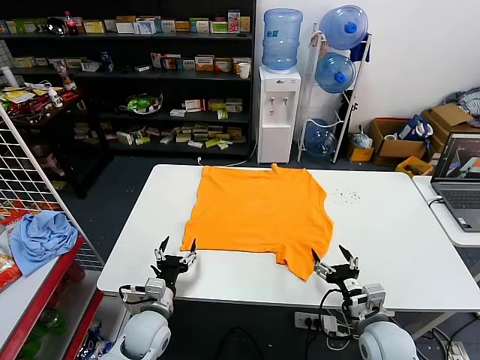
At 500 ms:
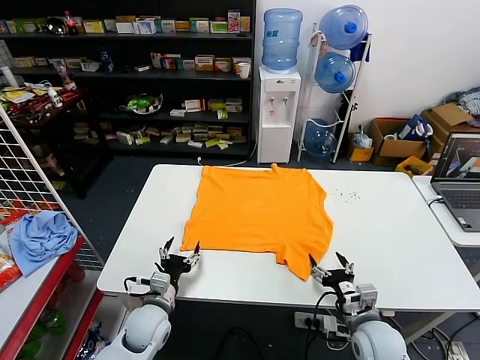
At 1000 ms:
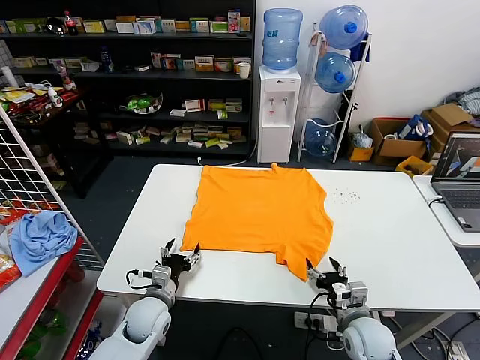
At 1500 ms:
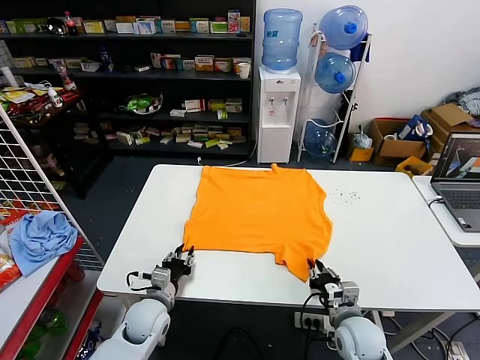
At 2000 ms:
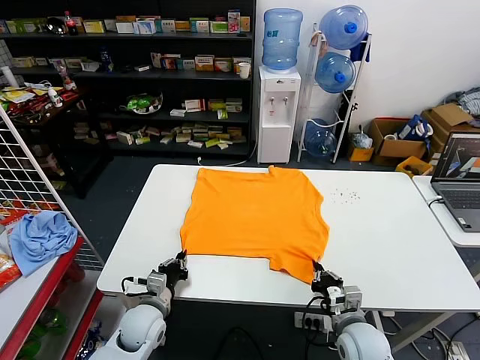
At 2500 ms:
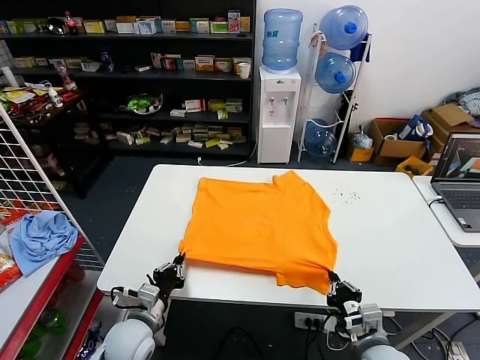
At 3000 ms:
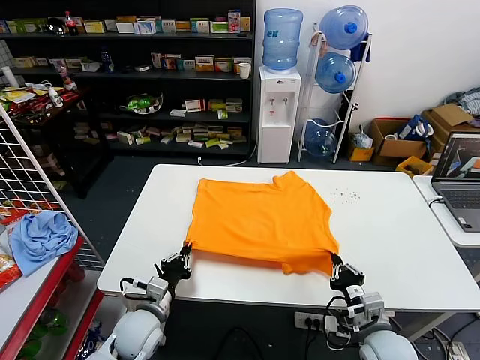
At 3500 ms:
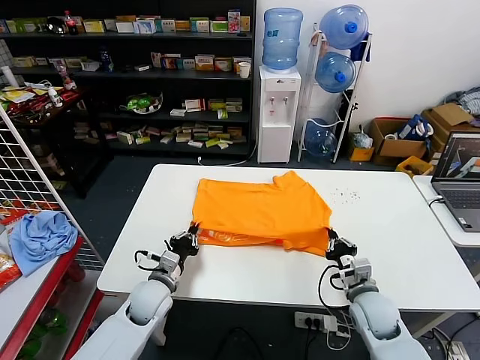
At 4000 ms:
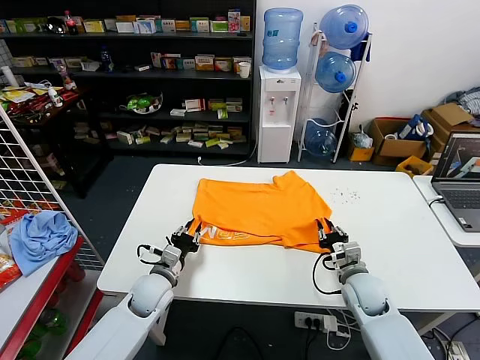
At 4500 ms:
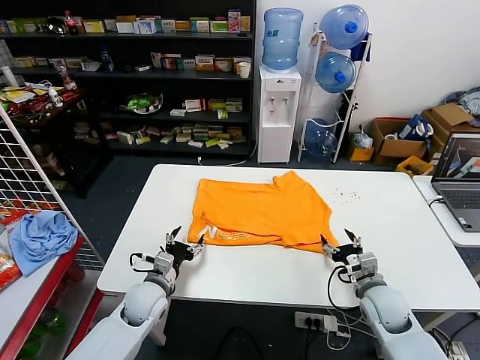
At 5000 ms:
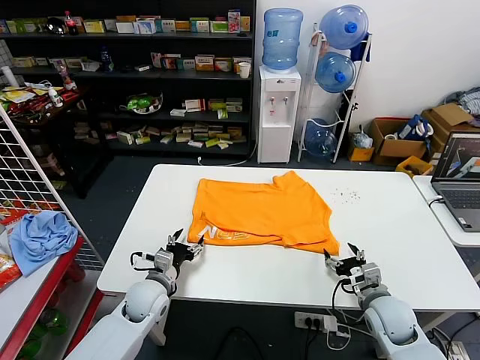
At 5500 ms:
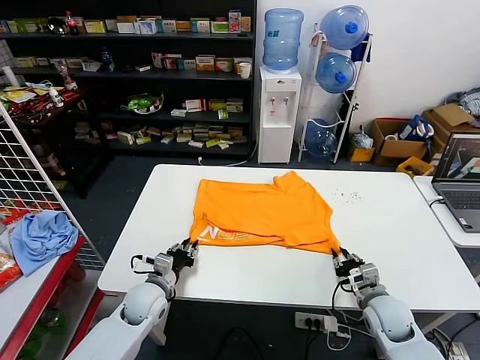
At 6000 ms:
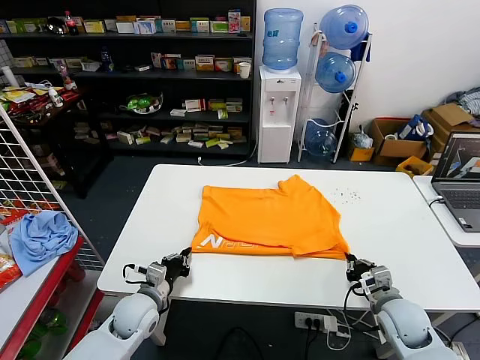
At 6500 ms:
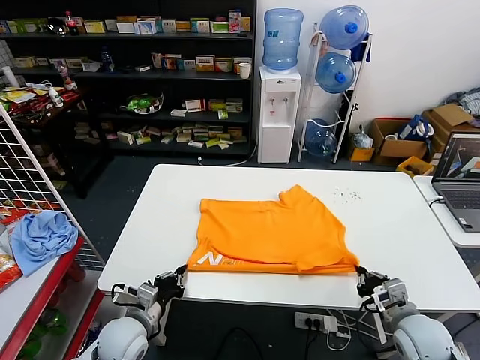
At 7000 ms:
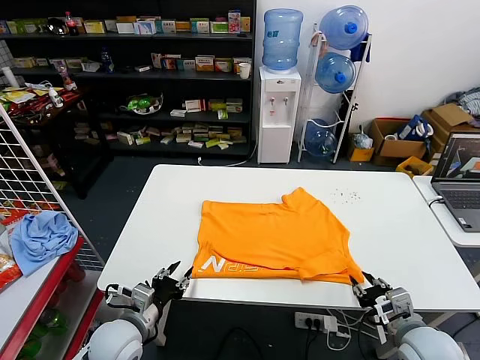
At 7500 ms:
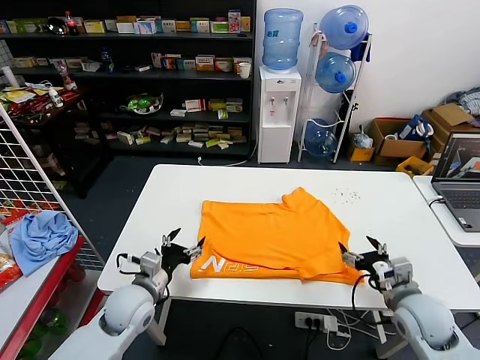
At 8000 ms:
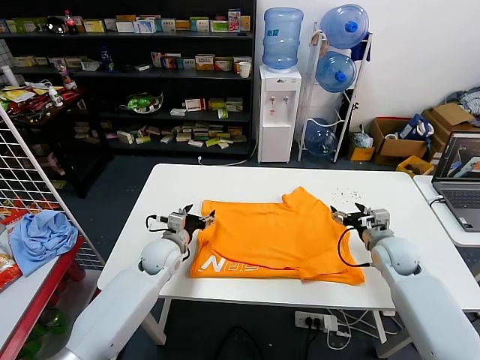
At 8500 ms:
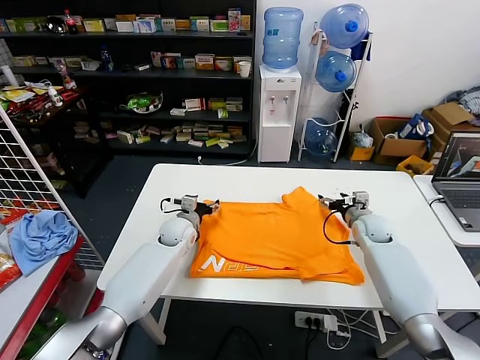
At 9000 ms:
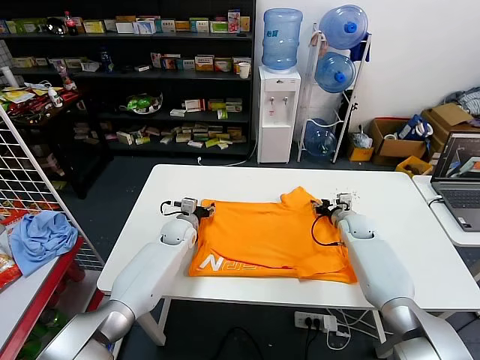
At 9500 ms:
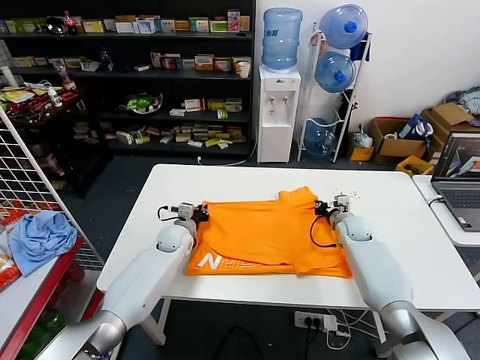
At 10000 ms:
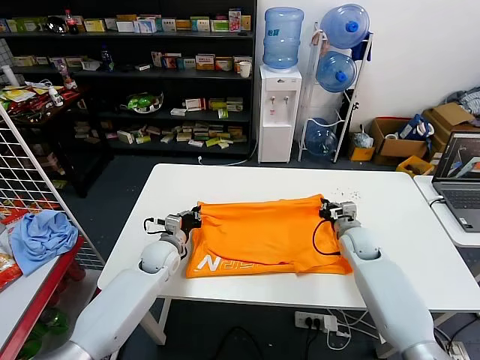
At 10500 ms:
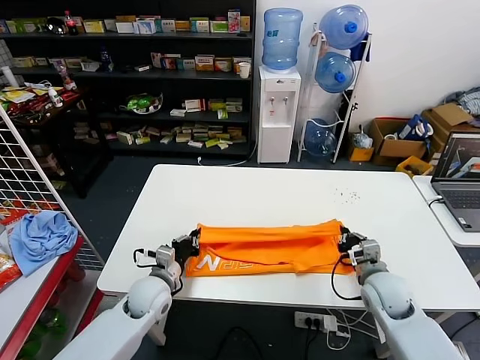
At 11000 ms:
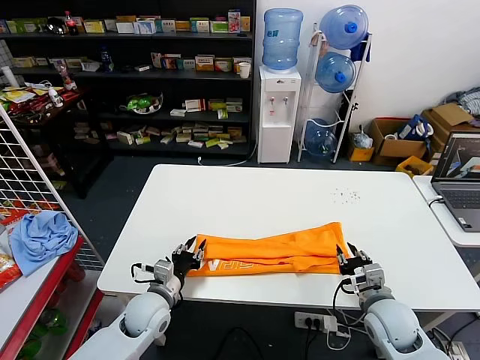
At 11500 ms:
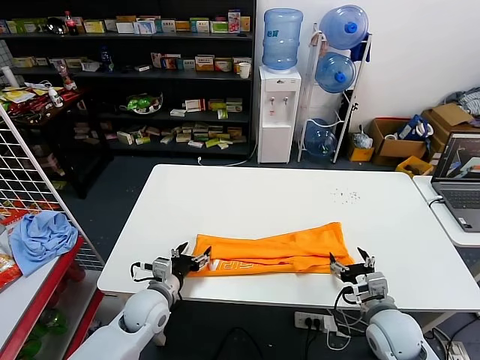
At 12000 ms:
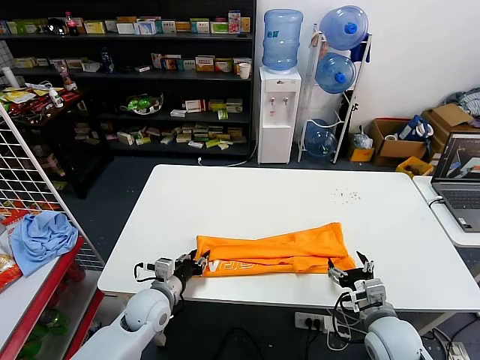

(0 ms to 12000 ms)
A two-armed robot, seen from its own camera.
Task of the whole recording: fold and organize the clothes.
Step, 0 ms - 1500 ms: use both grippers simultaneously to clamp the lower edge of the clothing fabric.
Step, 2000 ms - 3500 ms: use both grippers to drag the lower edge of the fabric forward and fold it over the upper edge.
Step, 4500 ms - 6500 ms: Drag the clothes downward with both gripper.
Step, 7000 ms - 9000 ms: use both grippers simultaneously to clamp the upper edge of the clothing fabric.
Step, 9500 ms - 10500 ms: use both grippers to drag the upper edge of the fabric backward and fold it over the lower edge.
2000 ms - 4000 ms: The left gripper travels forward by approximately 5 cm; the right gripper travels forward by approximately 10 cm, and opens its fingers.
4000 ms - 6000 ms: The right gripper shifts roughly 10 cm backward and to the right, and closes up. The left gripper shifts by about 5 cm, and opens and closes again.
6000 ms - 8000 ms: The two grippers go some 15 cm forward. The right gripper opens. Meanwhile the left gripper opens up.
8000 ms - 10000 ms: The left gripper moves some 10 cm forward and comes back, and closes. The right gripper moves to the left, some 5 cm, travels forward and back again, some 10 cm each way, and closes.
10000 ms - 12000 ms: The left gripper is displaced backward by about 15 cm, and opens its fingers. The right gripper moves backward, some 20 cm, and opens its fingers.

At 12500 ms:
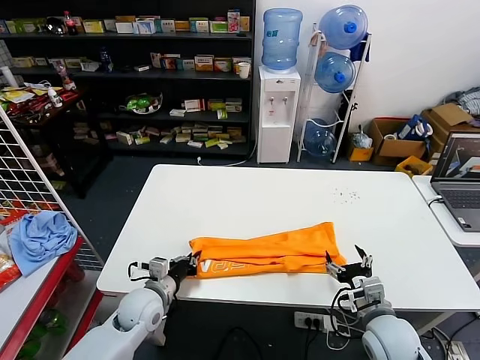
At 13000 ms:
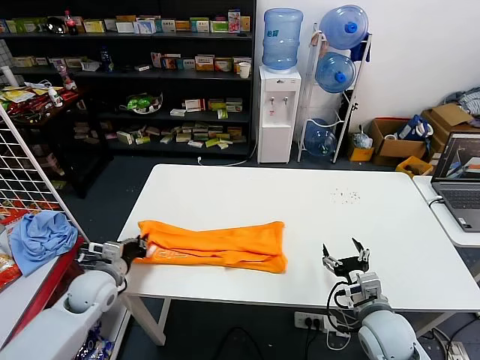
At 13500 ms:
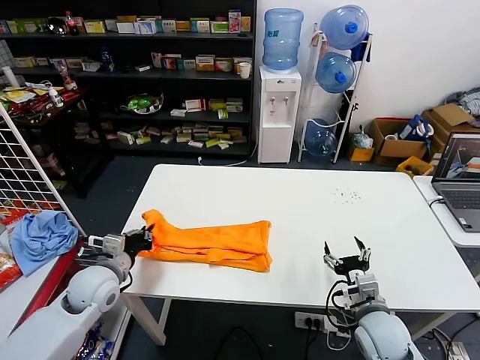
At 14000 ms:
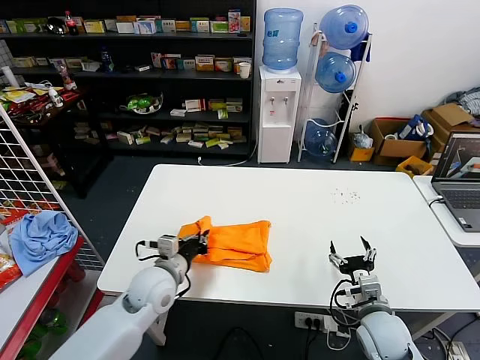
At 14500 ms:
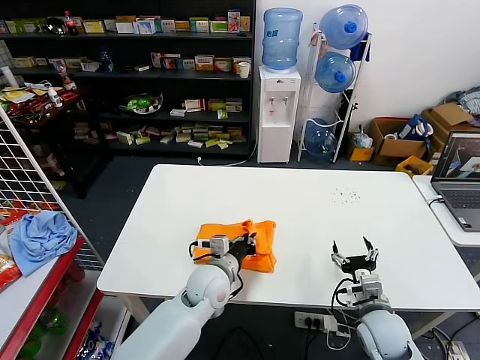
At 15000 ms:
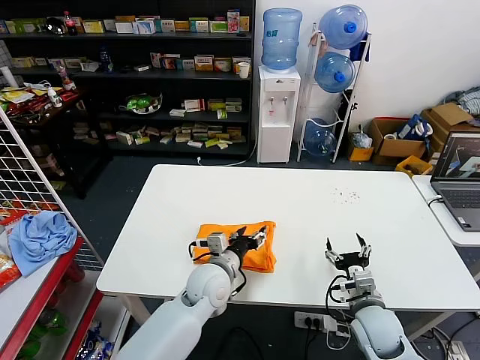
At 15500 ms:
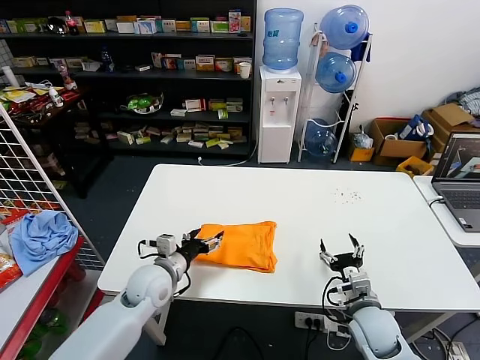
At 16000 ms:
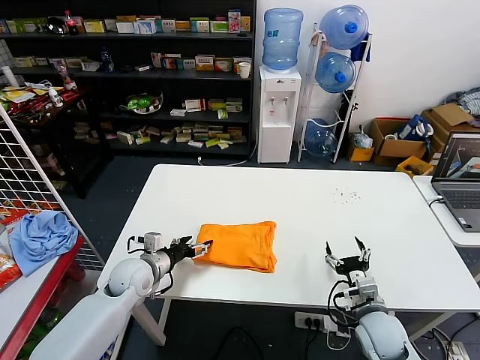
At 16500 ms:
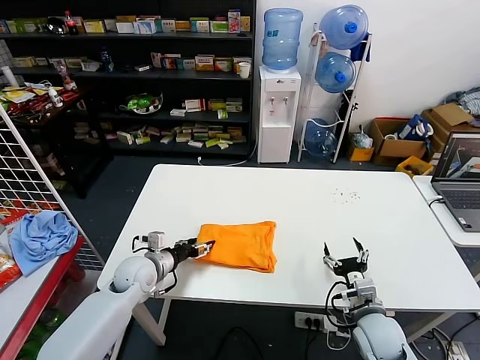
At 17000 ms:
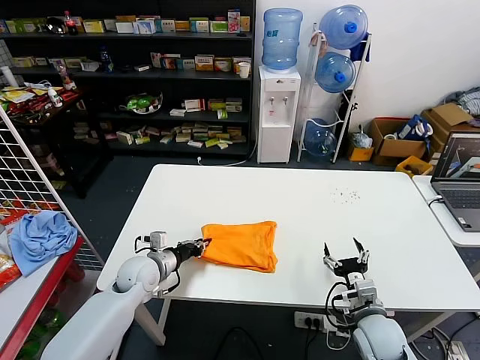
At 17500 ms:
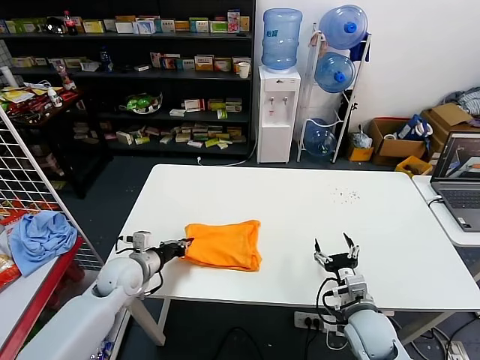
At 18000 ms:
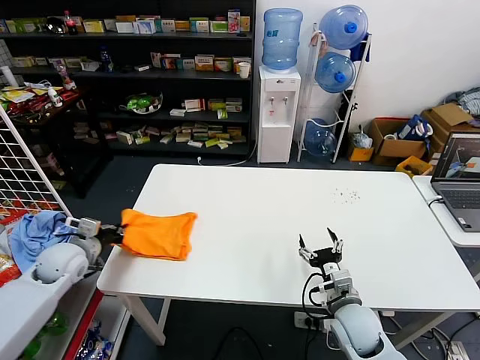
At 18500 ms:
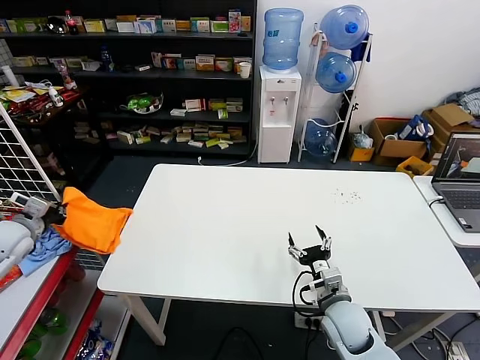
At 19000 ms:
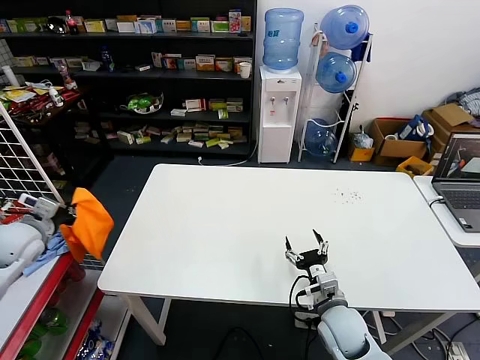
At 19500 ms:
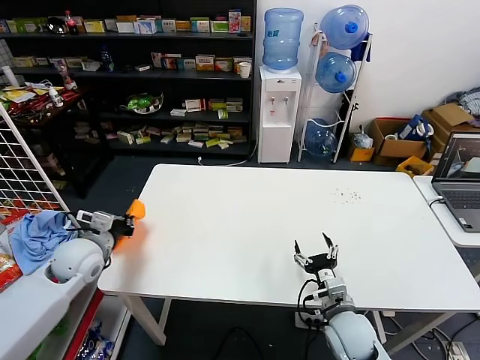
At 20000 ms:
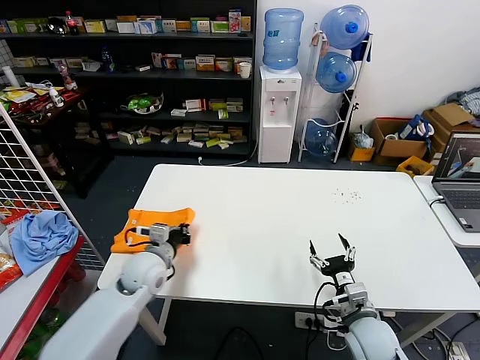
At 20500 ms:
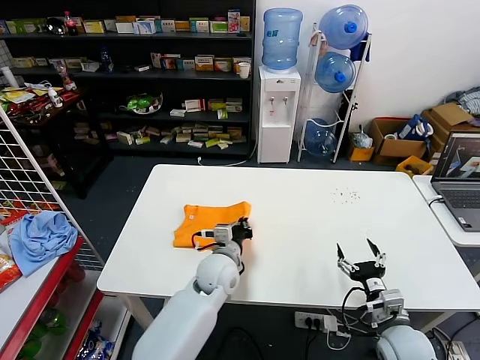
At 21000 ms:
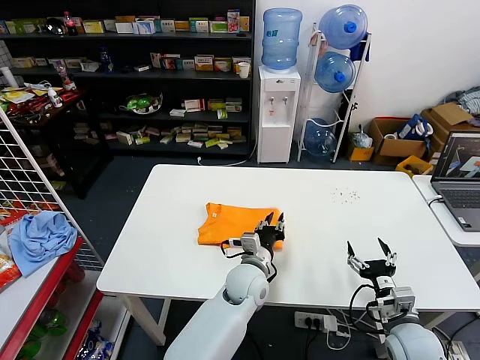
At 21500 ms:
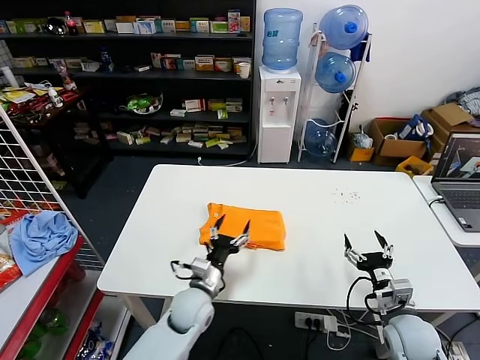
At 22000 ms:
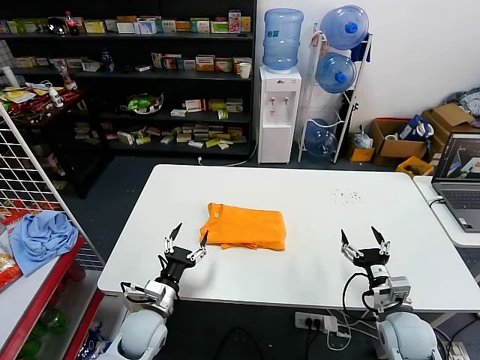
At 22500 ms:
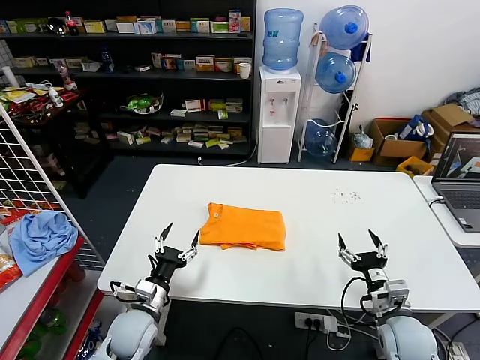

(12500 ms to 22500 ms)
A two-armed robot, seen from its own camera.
Task of the whole recording: fold and organize the clothes.
Step, 12500 ms - 14500 ms: use the left gripper to drag the left edge of the fabric to the left and folds it over the right edge.
Step, 15000 ms - 20500 ms: Flip the folded clothes over with left gripper.
12500 ms - 14500 ms: The left gripper travels to the right by approximately 15 cm.
14500 ms - 16500 ms: The left gripper is displaced to the left by some 20 cm, and opens up.
16500 ms - 18500 ms: The left gripper travels to the left and upward by roughly 30 cm, and closes up. Meanwhile the right gripper moves to the left, approximately 5 cm.
18500 ms - 20500 ms: The right gripper shifts approximately 10 cm to the right and backward. Meanwhile the left gripper is displaced to the right by approximately 40 cm.
20500 ms - 22500 ms: The left gripper shifts about 20 cm to the left and backward, and opens up.
